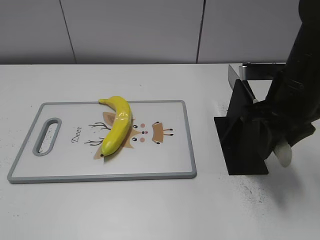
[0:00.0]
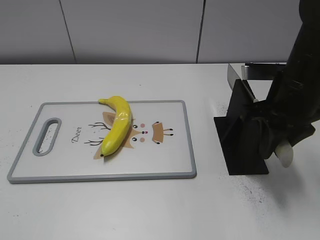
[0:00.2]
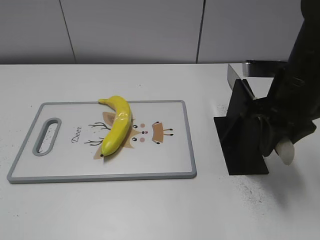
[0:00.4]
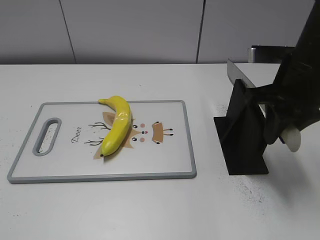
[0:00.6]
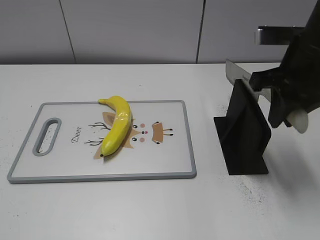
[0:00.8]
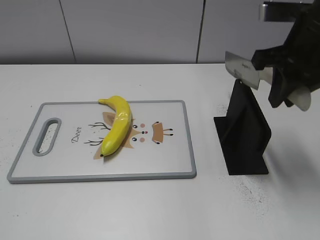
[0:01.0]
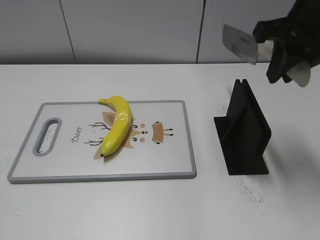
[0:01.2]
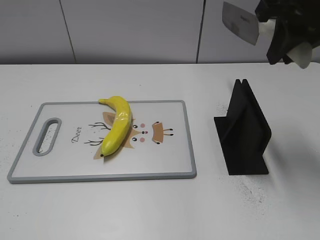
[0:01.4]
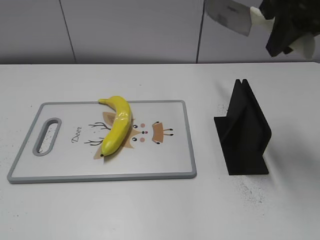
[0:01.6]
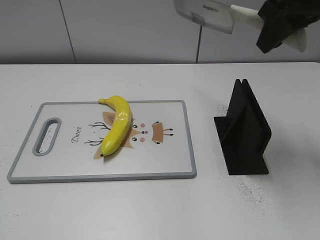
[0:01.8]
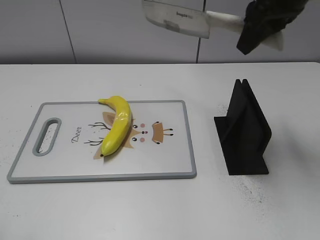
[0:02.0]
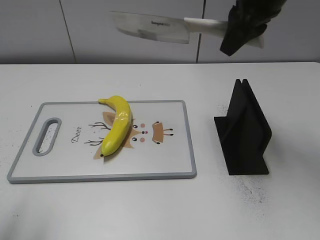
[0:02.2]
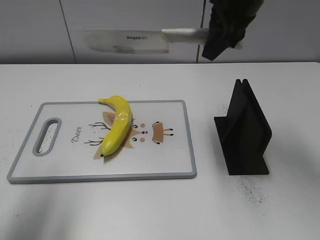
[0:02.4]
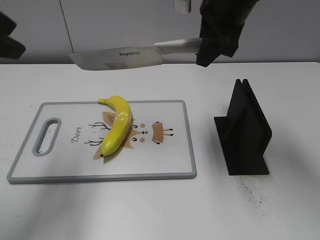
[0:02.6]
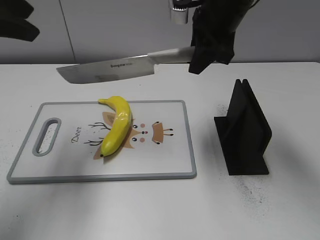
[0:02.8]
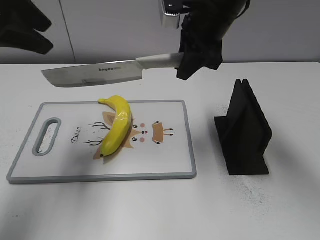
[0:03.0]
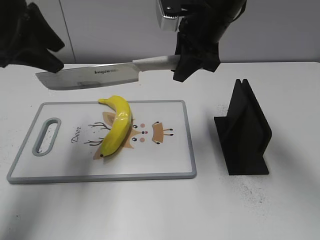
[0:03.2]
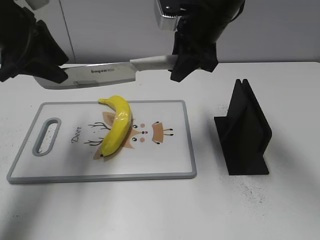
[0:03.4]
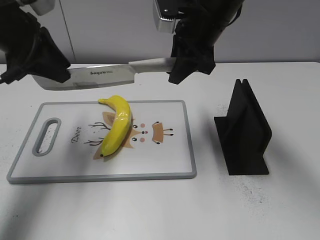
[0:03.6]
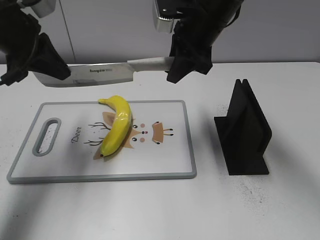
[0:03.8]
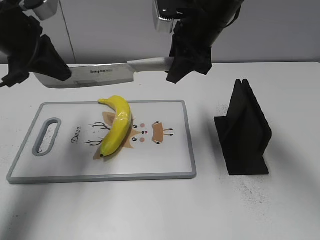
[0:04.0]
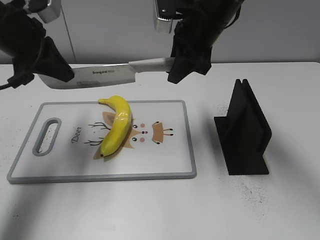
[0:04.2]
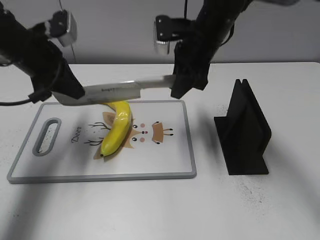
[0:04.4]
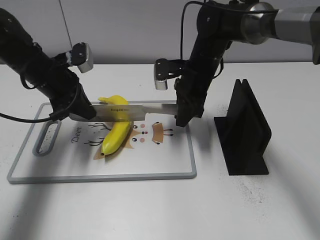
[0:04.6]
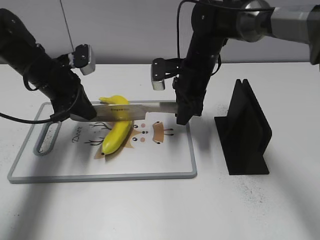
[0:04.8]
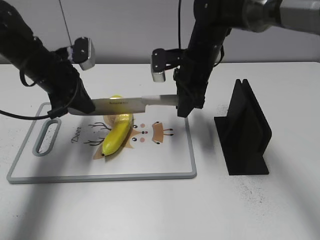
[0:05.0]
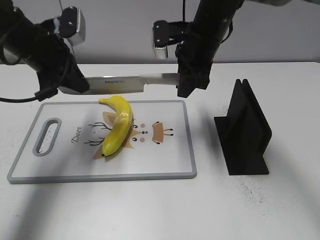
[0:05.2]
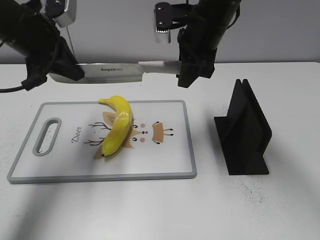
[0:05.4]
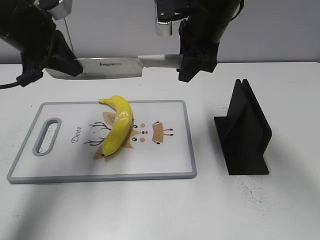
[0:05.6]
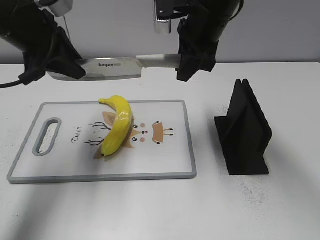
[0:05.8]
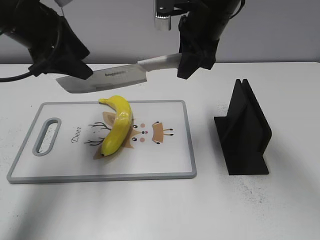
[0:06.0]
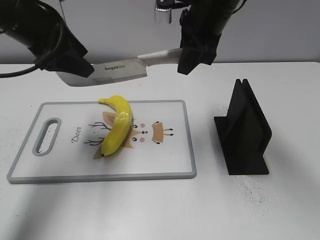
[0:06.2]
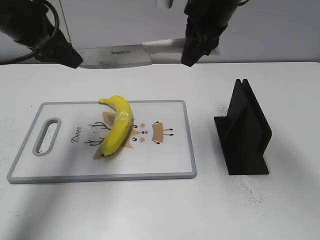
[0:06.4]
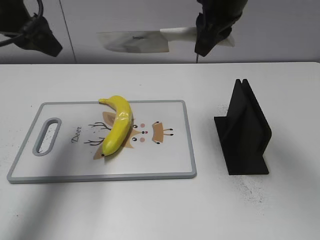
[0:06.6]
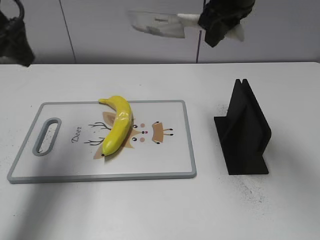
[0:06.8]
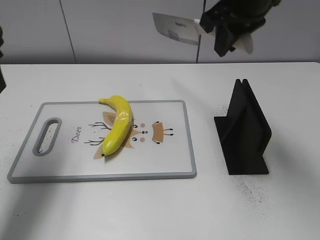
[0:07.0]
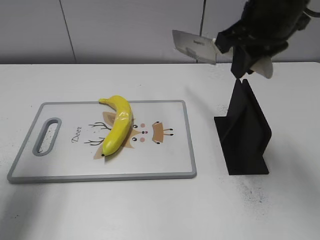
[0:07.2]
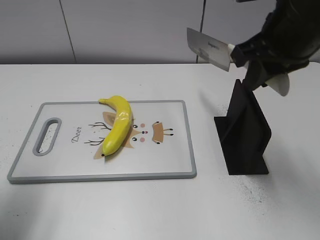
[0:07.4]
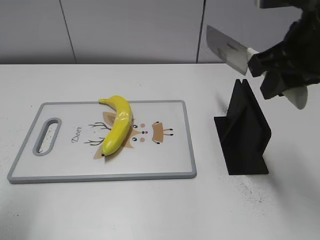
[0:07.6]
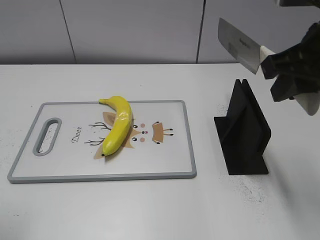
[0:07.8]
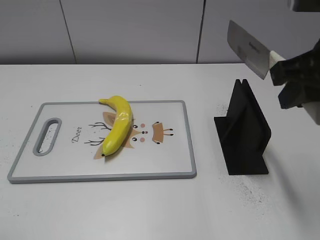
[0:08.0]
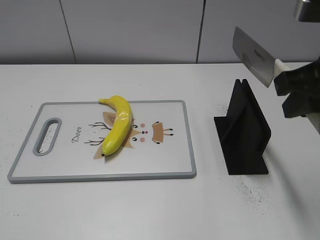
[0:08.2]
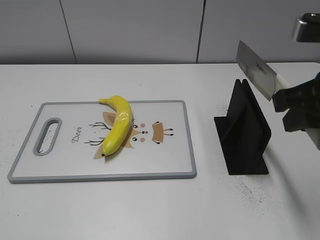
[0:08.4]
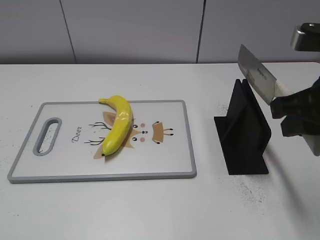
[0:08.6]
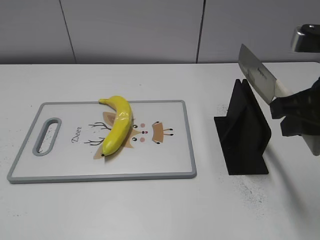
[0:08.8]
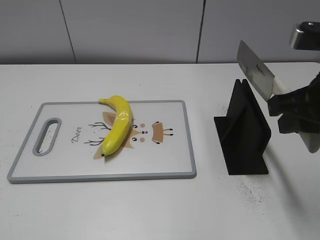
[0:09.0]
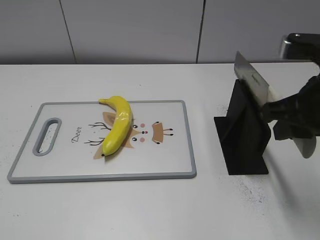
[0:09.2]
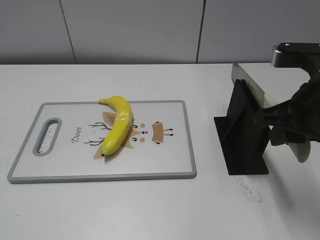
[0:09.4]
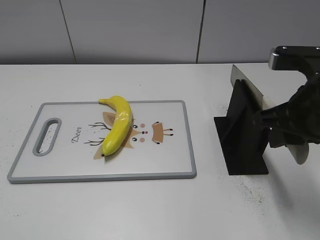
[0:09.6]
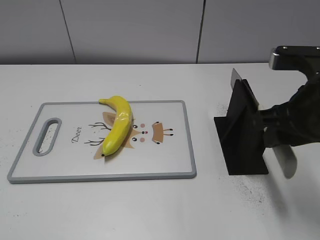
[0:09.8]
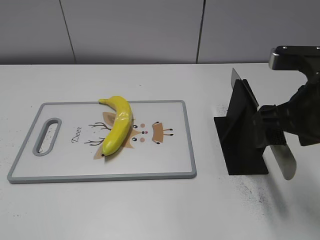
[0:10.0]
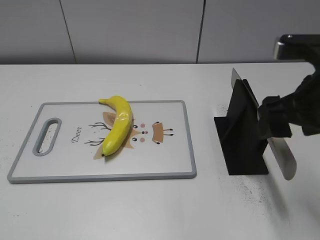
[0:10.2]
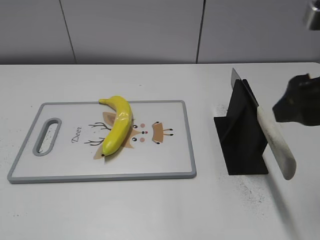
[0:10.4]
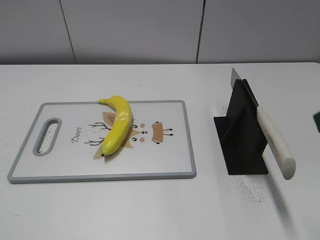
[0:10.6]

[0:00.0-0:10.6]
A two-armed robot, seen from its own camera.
Task of the whole recording: cut plastic banana.
Step, 0:01.4 to 0:06.0: Lift the knife with your right hand.
Step, 0:06.2 to 0:07.0: Cut the banana with your right hand.
Step, 0:07.2 to 0:08.4: Lift the knife with your right hand.
0:00.0 to 0:01.6: The right gripper shifts roughly 15 cm upward.
0:01.6 to 0:03.0: The right gripper moves to the left, downward and forward, some 15 cm, while the left gripper is displaced forward by about 30 cm.
0:03.0 to 0:04.6: The two grippers go roughly 15 cm downward. The left gripper closes.
0:04.6 to 0:06.0: The grippers both shift upward by about 15 cm. The left gripper opens.
0:06.0 to 0:07.6: The right gripper travels backward and to the right by some 15 cm; the left gripper moves backward and to the left, about 20 cm.
0:07.6 to 0:09.0: The left gripper goes some 20 cm backward, while the right gripper changes place by some 5 cm.
0:09.0 to 0:10.6: The right gripper heads backward and upward, covering about 10 cm, and opens up.
